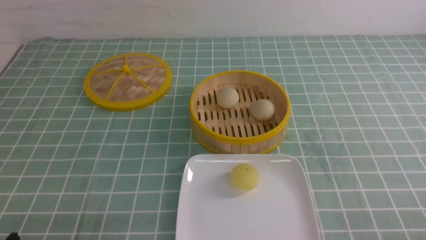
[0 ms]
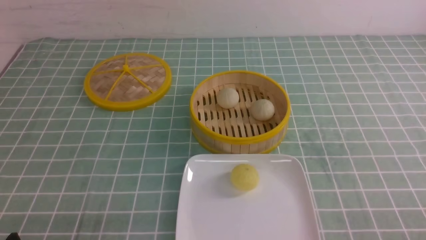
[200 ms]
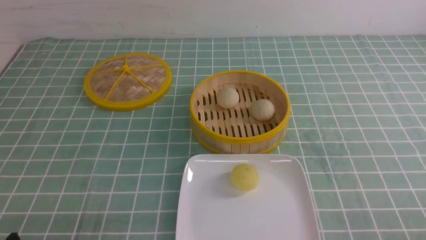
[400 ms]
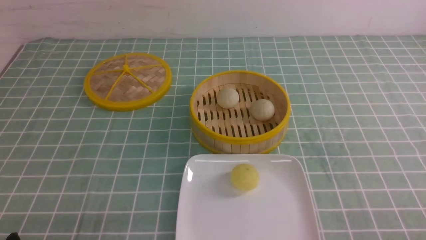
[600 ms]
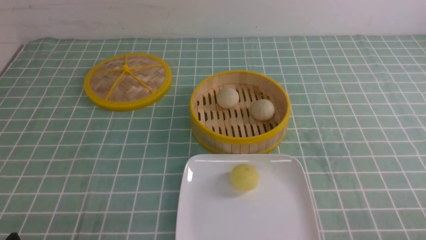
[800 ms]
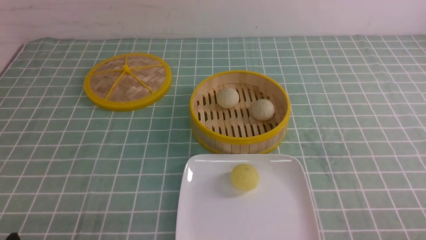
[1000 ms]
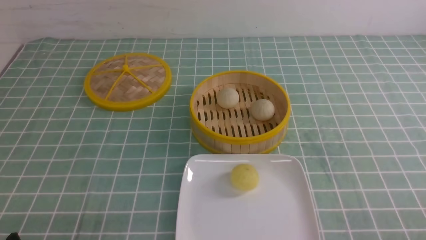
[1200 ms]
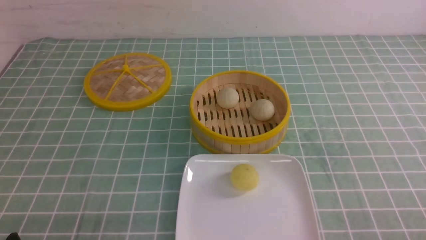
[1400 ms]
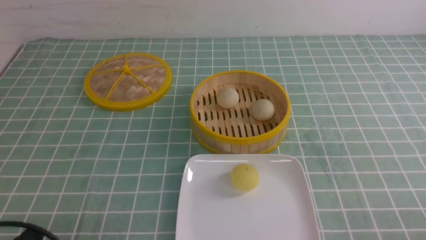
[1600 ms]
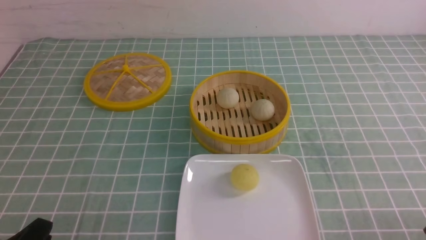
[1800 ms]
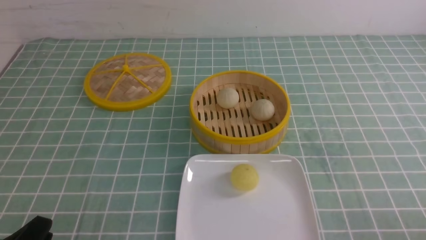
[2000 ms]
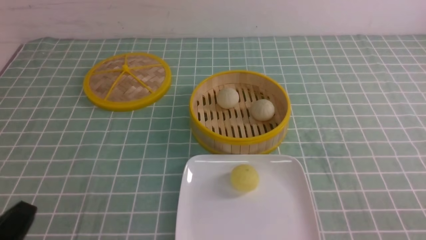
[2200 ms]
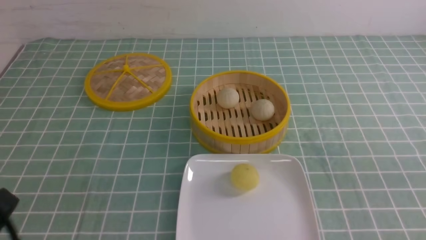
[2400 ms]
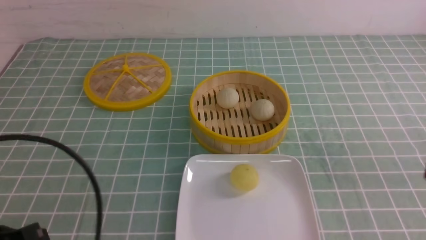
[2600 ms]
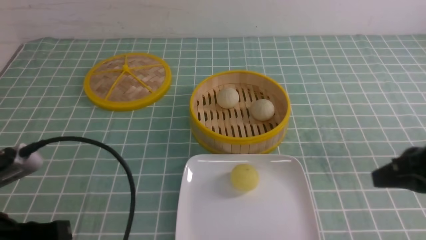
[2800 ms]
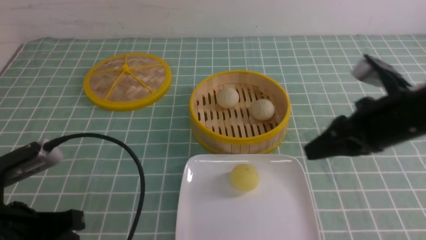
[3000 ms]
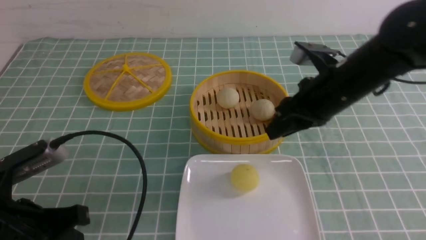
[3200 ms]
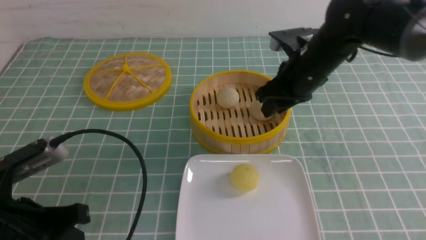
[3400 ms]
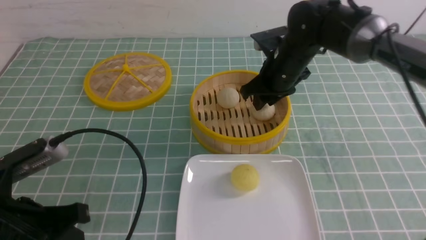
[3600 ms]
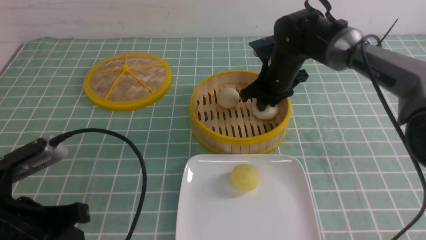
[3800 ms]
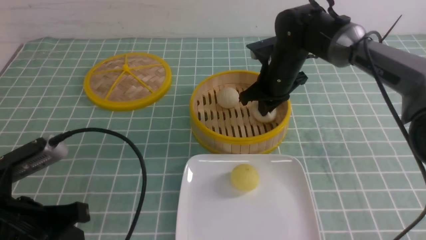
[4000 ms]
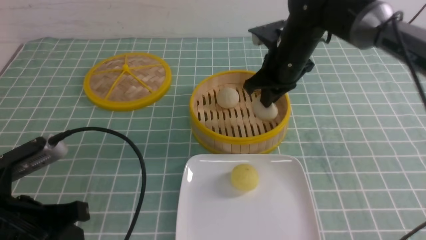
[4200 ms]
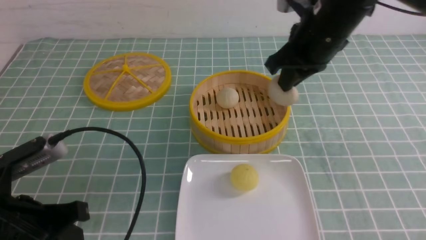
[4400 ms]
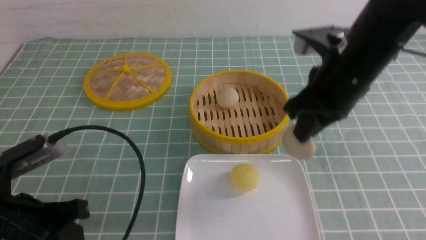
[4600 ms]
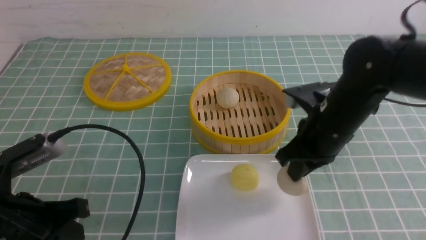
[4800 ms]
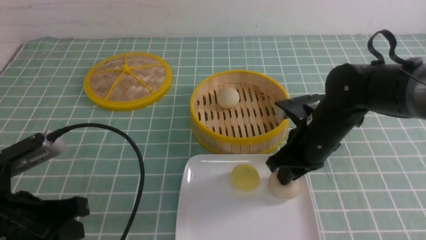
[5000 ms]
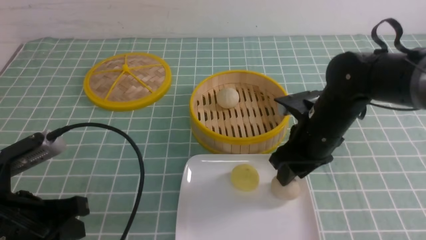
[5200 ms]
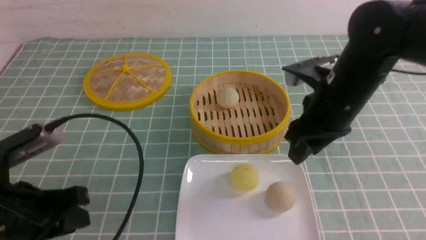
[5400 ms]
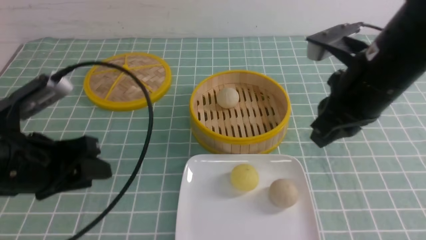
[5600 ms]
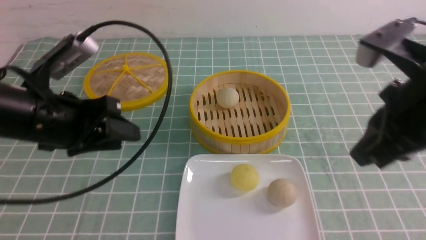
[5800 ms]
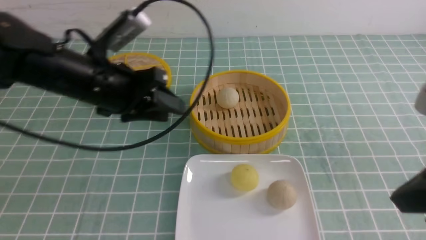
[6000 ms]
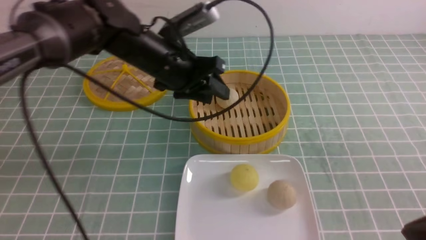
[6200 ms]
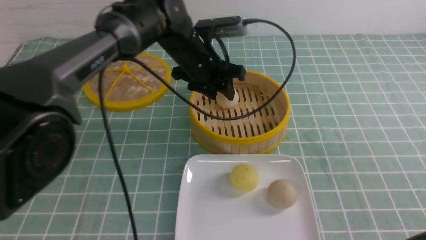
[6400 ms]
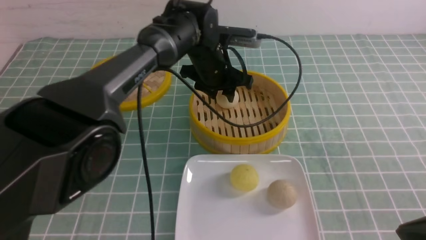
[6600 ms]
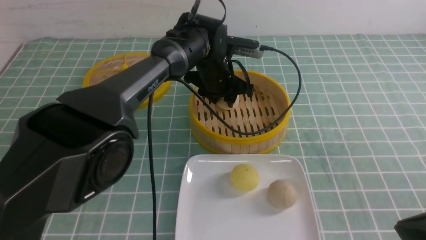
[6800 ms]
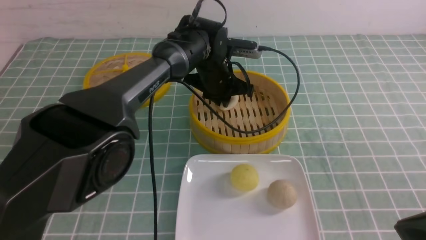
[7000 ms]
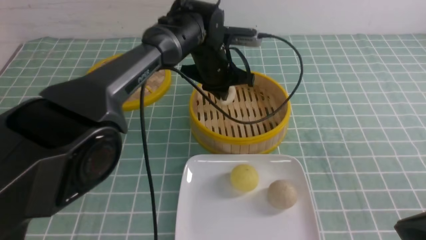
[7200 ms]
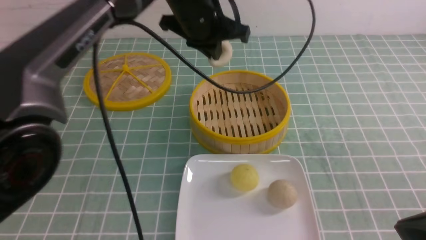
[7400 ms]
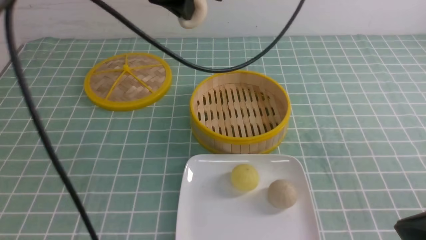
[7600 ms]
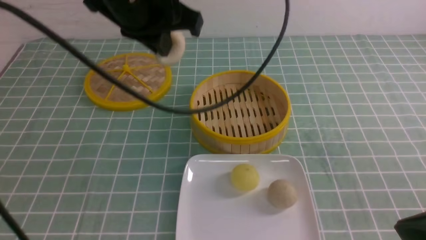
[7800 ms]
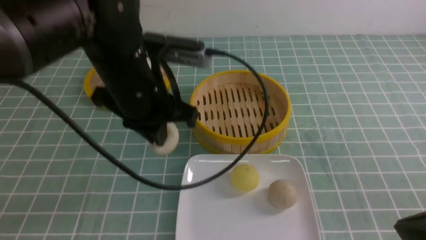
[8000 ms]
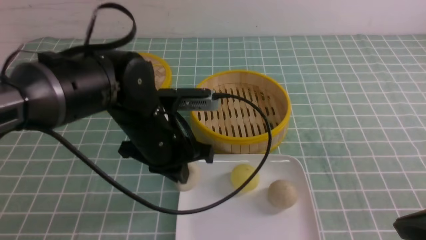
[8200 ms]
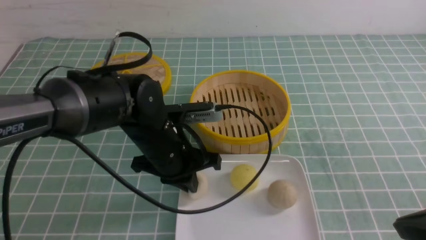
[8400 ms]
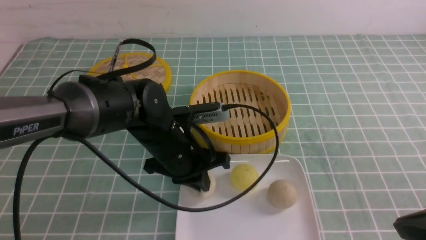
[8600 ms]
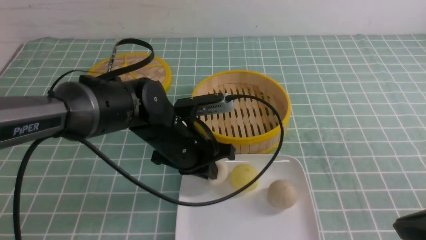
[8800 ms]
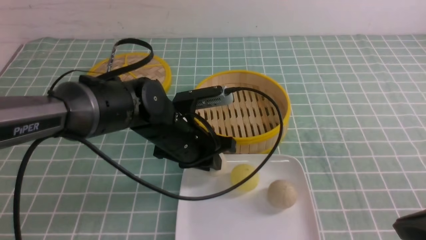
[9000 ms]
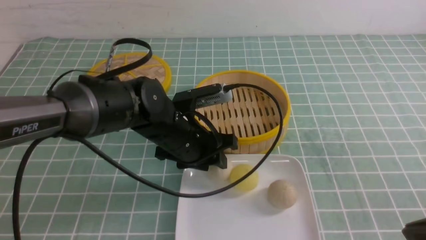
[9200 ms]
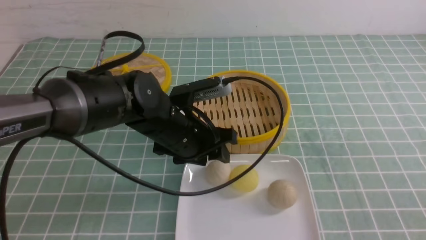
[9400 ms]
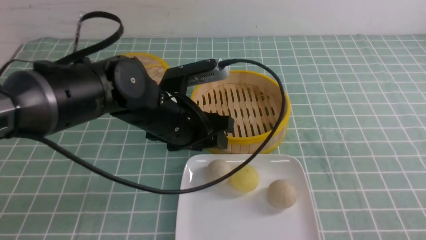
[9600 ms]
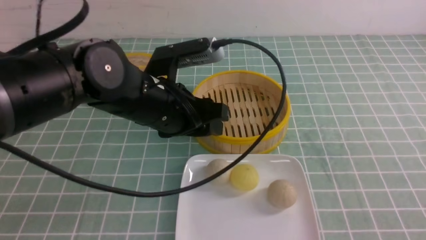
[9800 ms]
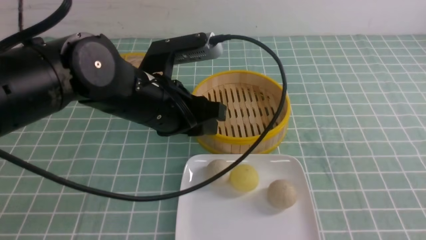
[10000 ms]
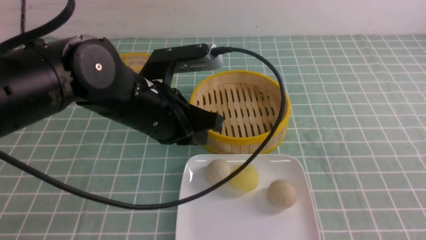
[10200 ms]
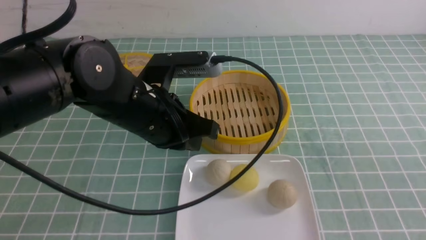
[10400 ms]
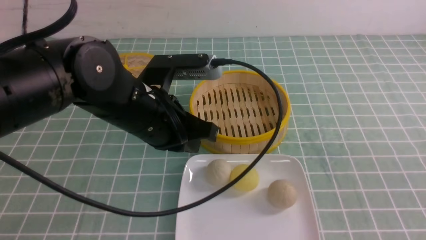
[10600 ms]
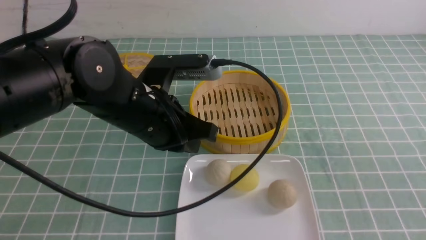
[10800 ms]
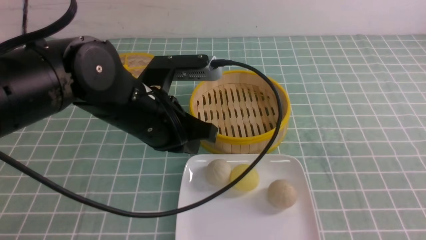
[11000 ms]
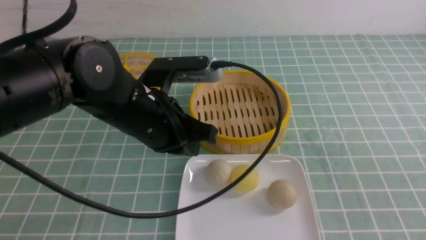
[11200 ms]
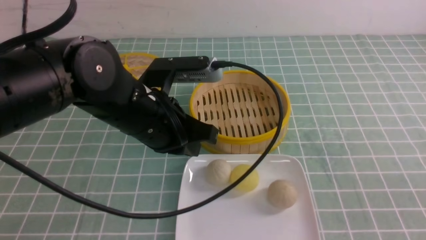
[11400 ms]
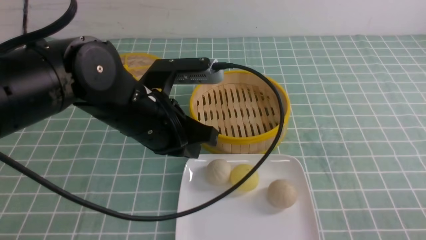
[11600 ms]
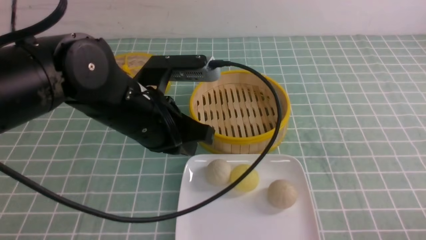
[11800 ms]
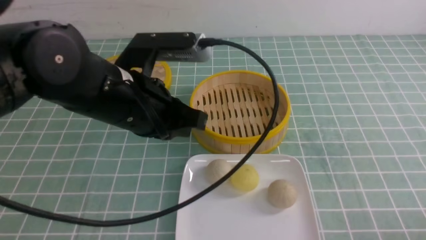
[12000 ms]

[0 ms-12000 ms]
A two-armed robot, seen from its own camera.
Step, 0 ms to 4000 ms: use the right arm to grab the steamed stuffed bun that is closest to it.
Step, 4200 ms to 5200 ms: use the right arm to put the steamed stuffed bun into the plate.
Step, 5400 ms to 7200 ms: use the left arm to grab the steamed stuffed bun that is closest to it.
Step, 7400 ms to 9200 ms: use the left arm to put the steamed stuffed bun into the plate.
1600 ms to 3000 ms: The right gripper shifts about 25 cm forward, upward and to the left, and closes, then opens again; the left gripper is displaced forward and upward by some 10 cm, and closes its fingers.
3000 ms to 4400 ms: The right gripper moves forward and to the left, approximately 10 cm, and closes its fingers.
4400 ms to 6000 ms: The right gripper goes approximately 25 cm backward and to the right, and opens and closes again, while the left gripper shifts about 20 cm forward and to the right, and opens.
6000 ms to 7600 ms: The left gripper moves upward and to the right, roughly 15 cm, and closes, while the right gripper is displaced downward by some 5 cm.
7600 ms to 9000 ms: The left gripper goes roughly 20 cm downward, and opens.
9000 ms to 10400 ms: The right gripper travels backward and to the right by approximately 10 cm; the left gripper travels upward by approximately 10 cm, and closes.
10400 ms to 12000 ms: The right gripper heads downward, covering approximately 15 cm, while the left gripper shifts by about 5 cm.

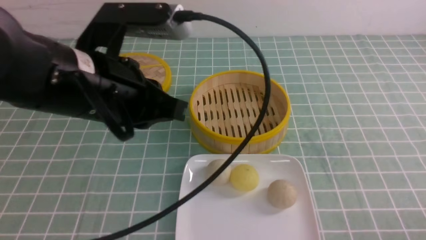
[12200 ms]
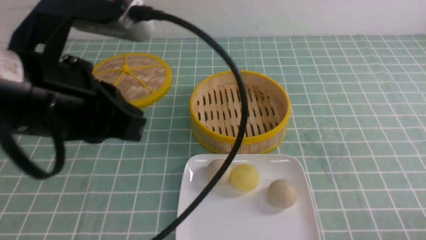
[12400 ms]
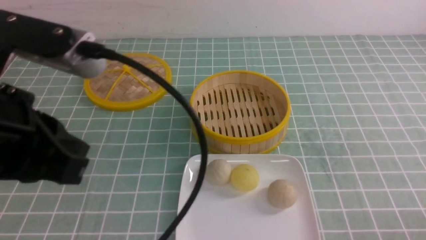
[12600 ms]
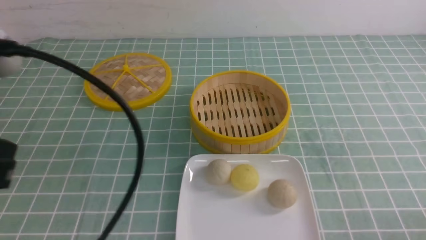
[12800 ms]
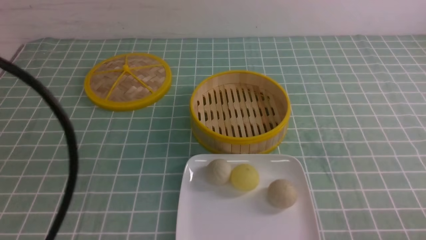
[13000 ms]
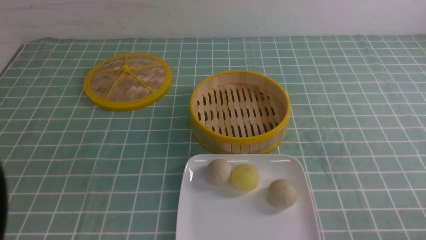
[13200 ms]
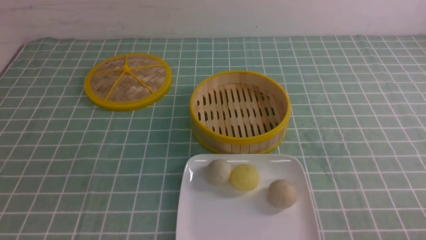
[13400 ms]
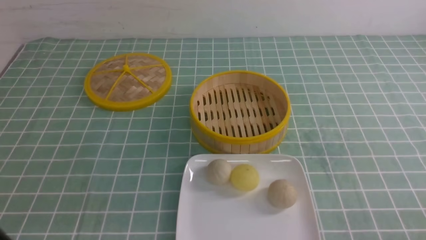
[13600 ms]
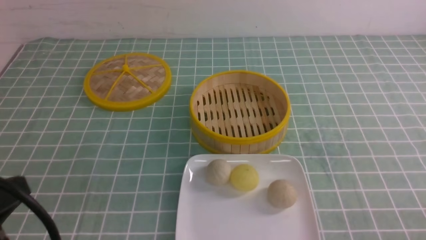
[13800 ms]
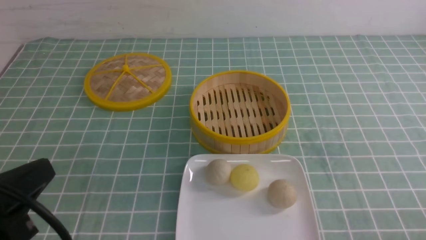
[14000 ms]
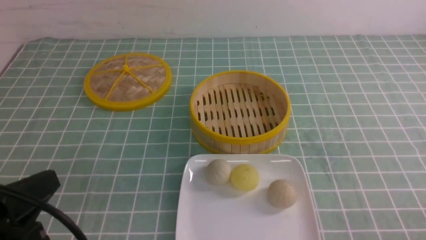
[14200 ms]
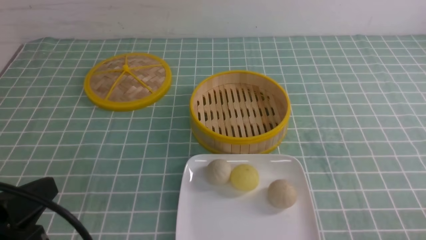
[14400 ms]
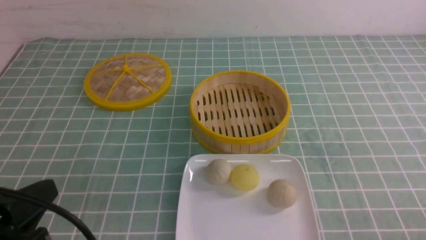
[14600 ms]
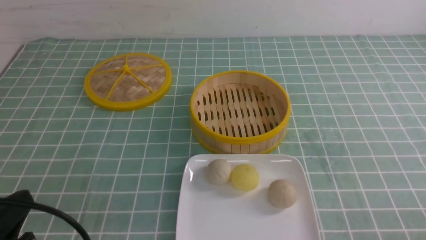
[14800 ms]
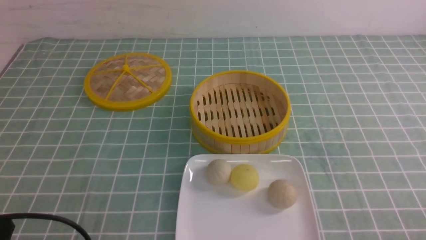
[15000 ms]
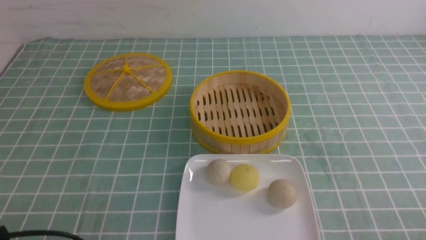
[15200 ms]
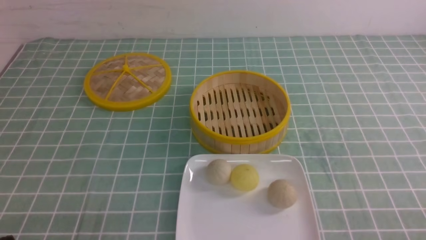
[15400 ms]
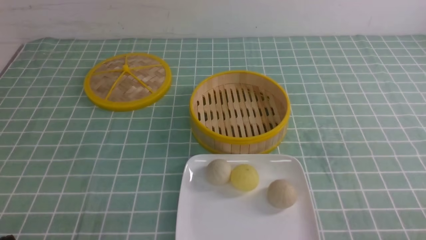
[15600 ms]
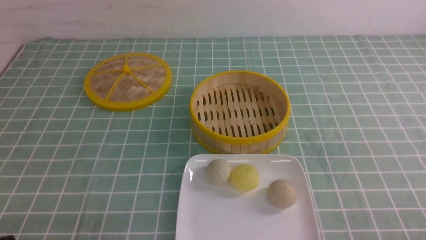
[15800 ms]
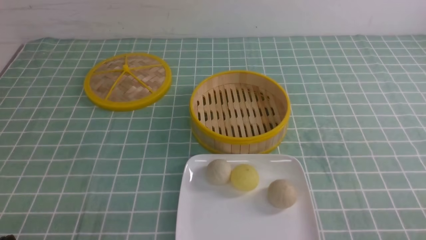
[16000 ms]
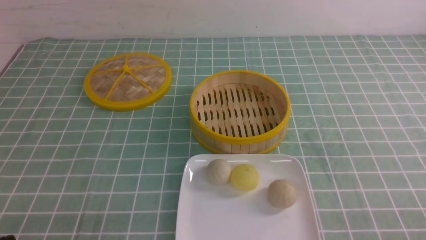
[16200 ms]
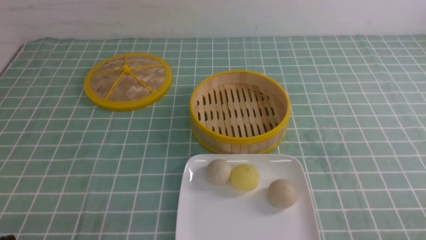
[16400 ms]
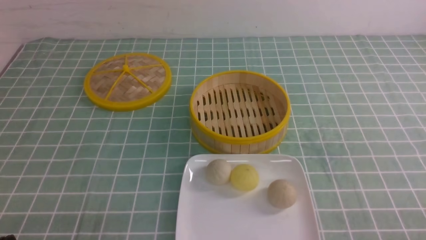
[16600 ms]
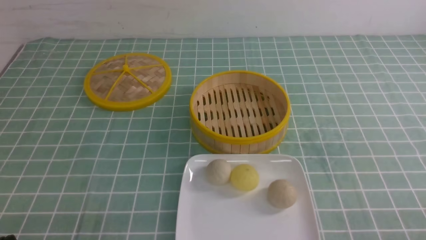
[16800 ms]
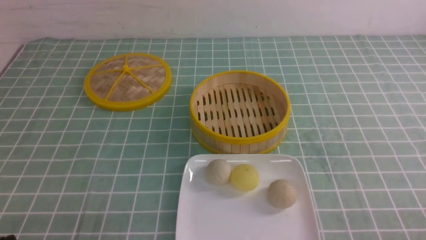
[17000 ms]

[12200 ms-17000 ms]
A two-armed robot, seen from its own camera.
12200 ms to 13800 ms: The left gripper is displaced backward and to the left by approximately 20 cm.
13800 ms to 15400 ms: The left gripper travels downward by approximately 15 cm.
15400 ms to 17000 ms: Both grippers stay put.
